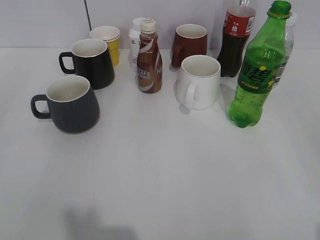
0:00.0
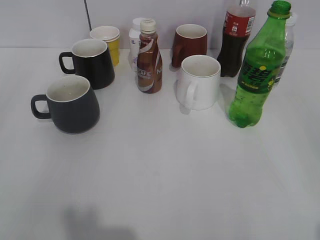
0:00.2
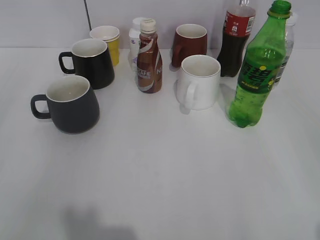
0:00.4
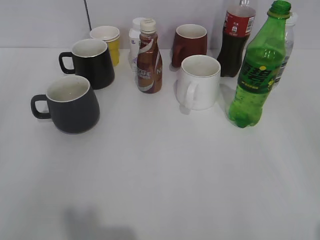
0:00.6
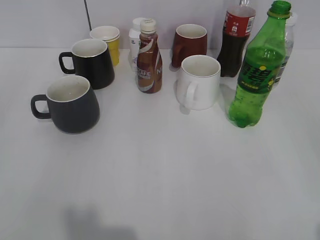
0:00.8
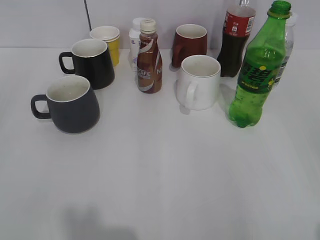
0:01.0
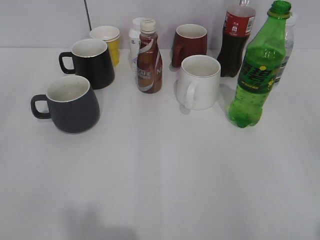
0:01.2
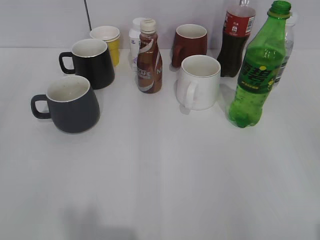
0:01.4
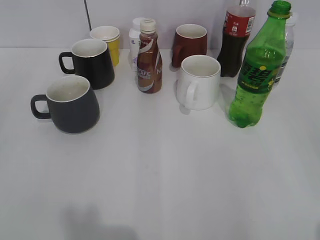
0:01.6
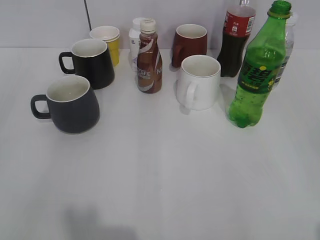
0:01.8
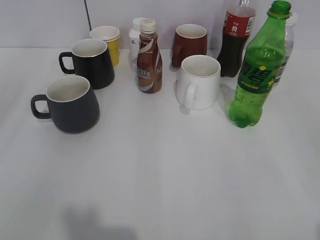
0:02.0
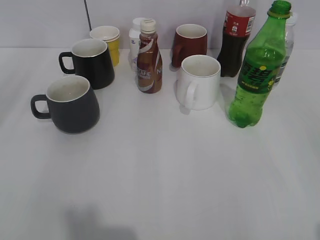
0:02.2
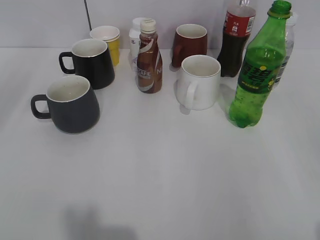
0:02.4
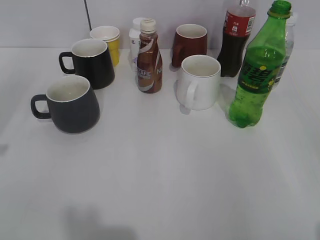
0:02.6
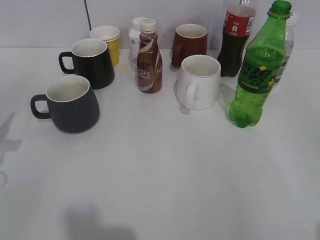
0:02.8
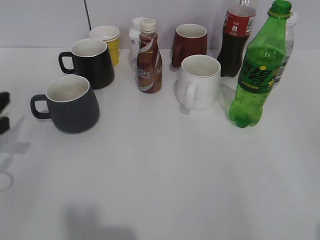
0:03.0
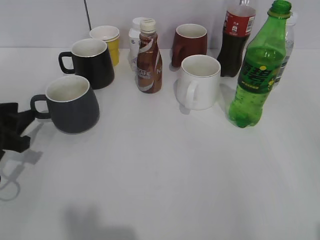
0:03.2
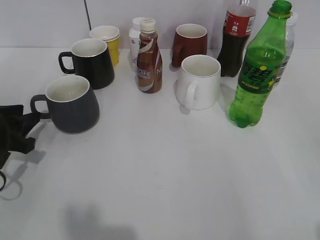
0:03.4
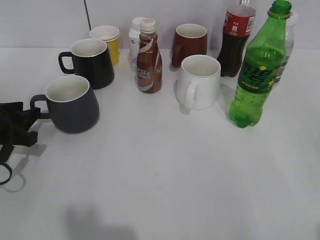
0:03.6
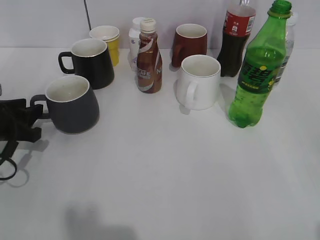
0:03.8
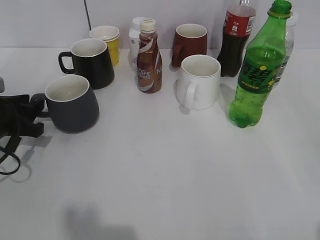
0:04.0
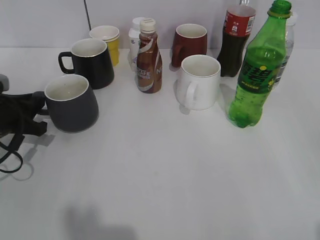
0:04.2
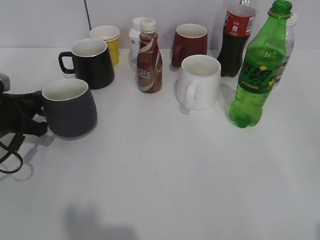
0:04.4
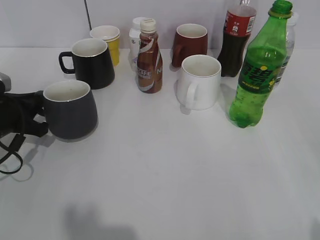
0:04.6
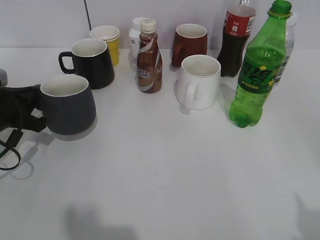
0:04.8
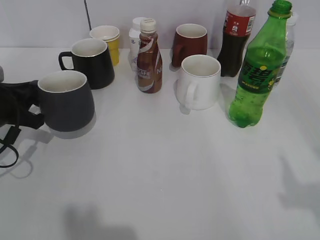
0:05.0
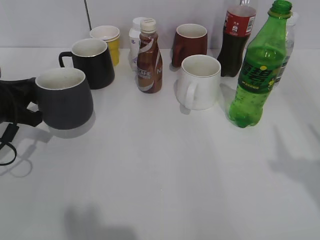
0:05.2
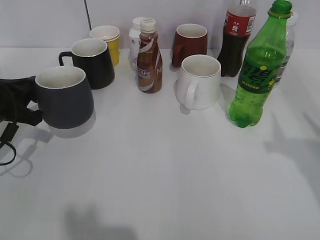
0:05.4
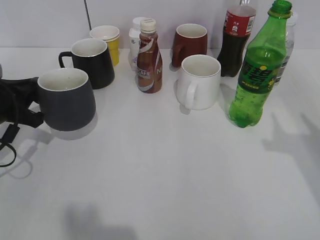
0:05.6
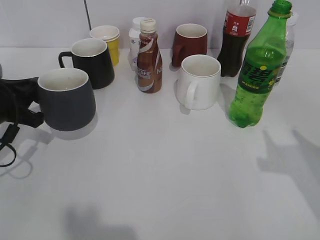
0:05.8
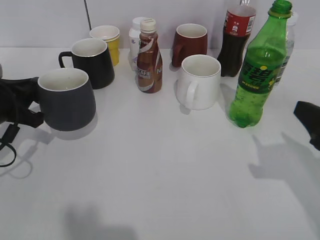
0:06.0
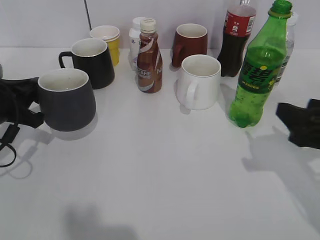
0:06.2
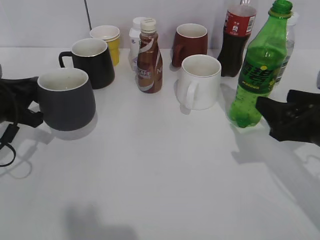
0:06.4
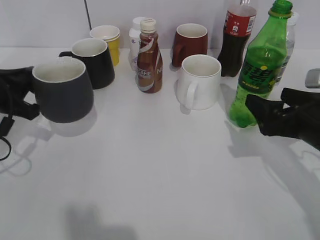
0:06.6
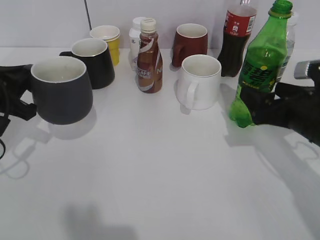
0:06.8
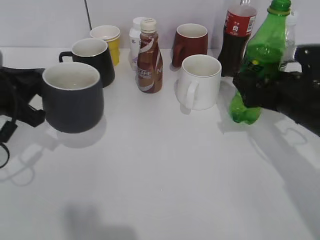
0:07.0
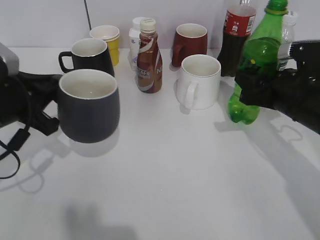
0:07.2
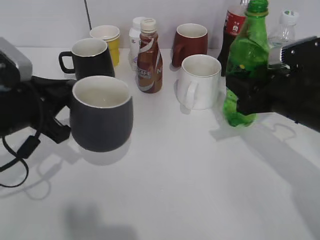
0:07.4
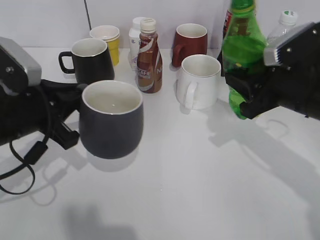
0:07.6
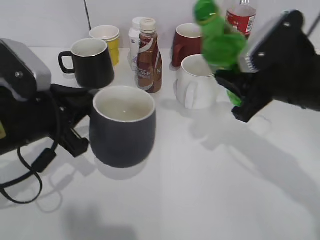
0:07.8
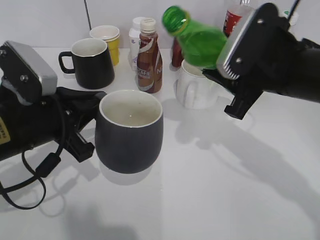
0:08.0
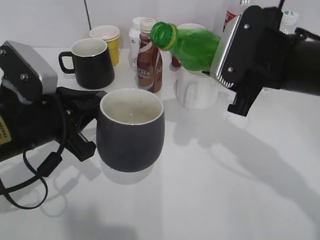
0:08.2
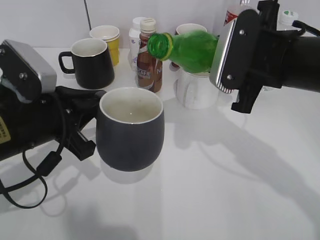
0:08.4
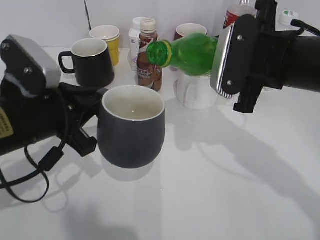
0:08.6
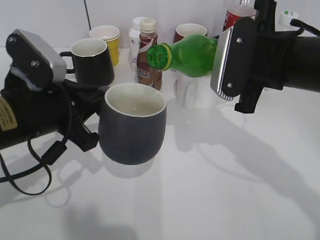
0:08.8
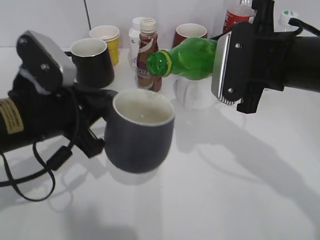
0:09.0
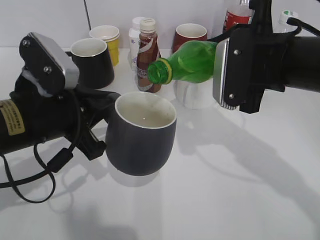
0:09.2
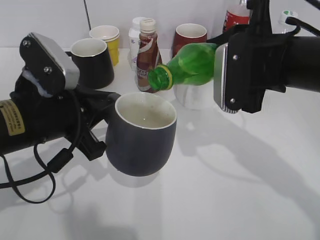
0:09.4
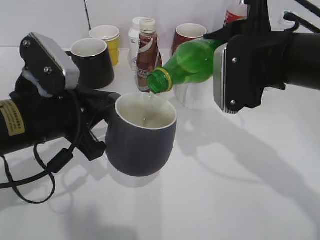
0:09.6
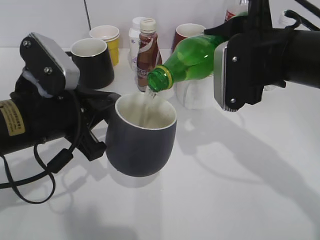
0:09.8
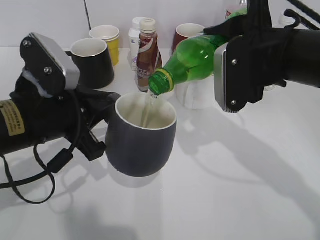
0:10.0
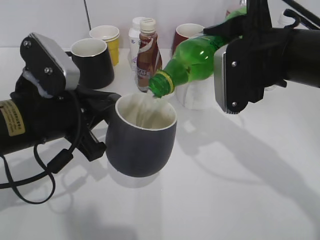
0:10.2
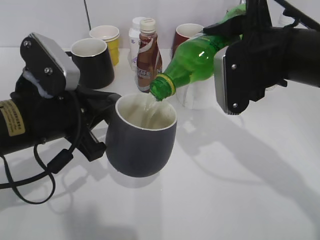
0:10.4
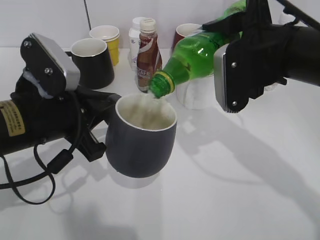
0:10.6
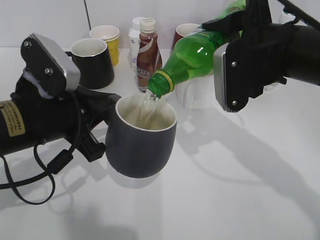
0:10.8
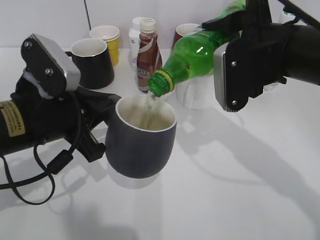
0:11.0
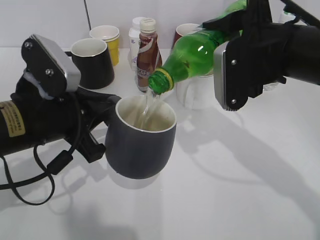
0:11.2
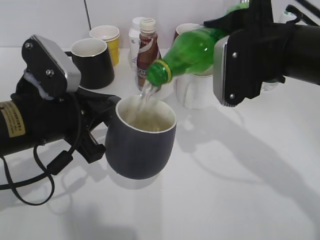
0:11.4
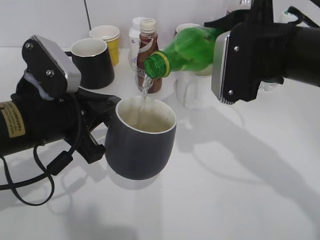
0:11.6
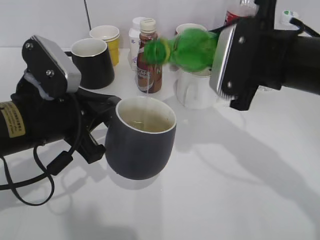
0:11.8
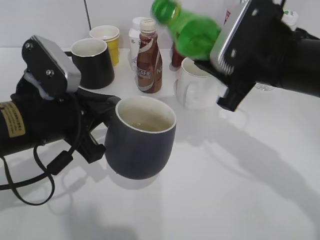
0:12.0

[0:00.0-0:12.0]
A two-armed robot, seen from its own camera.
Step, 0:01.8 to 0:04.2: Grasp the grey cup with left gripper.
Step, 0:06.0 to 0:07.0: Grasp the bottle with sprite with right gripper.
Step, 0:07.4 to 0:11.8: Pour the sprite from bottle to cup with right gripper.
0:01.6 to 0:03.0: The left gripper shifts roughly 25 cm forward and downward.
0:03.0 to 0:04.4: The left gripper changes place by about 5 cm, and closes its fingers.
0:04.4 to 0:06.0: The right gripper moves forward and downward, roughly 20 cm.
0:06.0 to 0:07.6: The left gripper moves to the right, about 5 cm. The right gripper moves forward and to the left, roughly 10 cm, and closes its fingers.
0:07.6 to 0:09.0: The right gripper shifts about 10 cm to the left and upward.

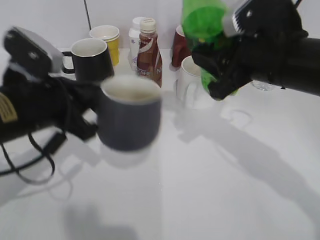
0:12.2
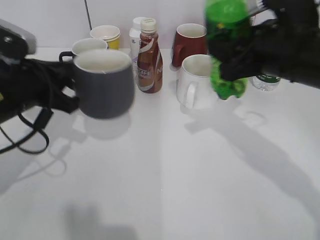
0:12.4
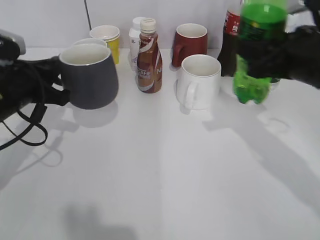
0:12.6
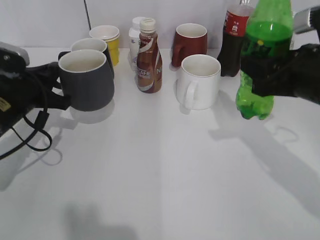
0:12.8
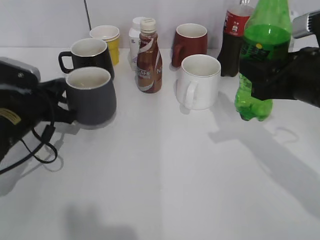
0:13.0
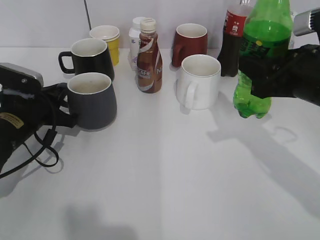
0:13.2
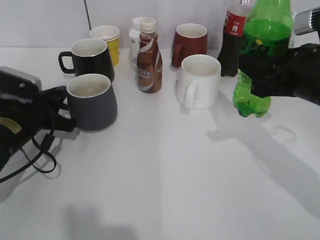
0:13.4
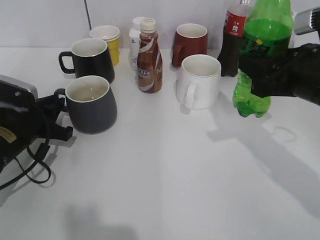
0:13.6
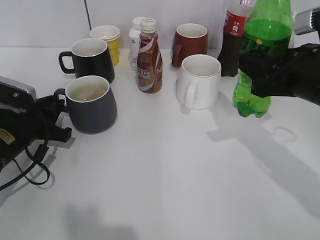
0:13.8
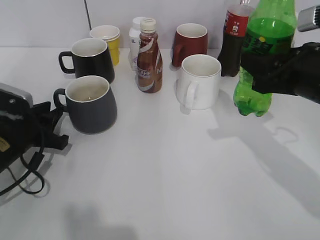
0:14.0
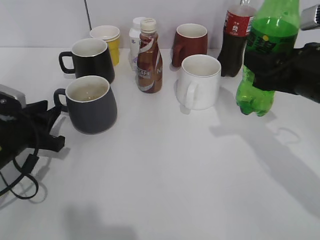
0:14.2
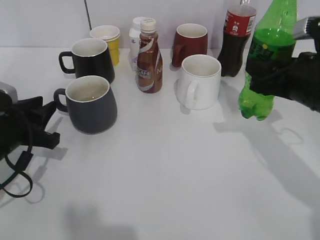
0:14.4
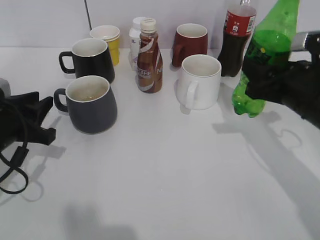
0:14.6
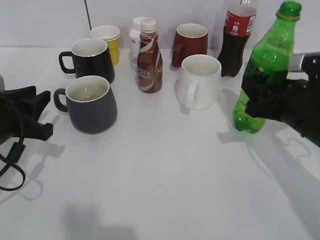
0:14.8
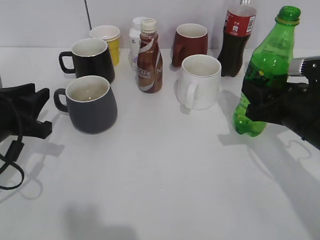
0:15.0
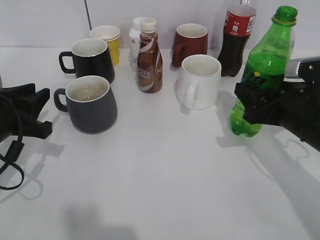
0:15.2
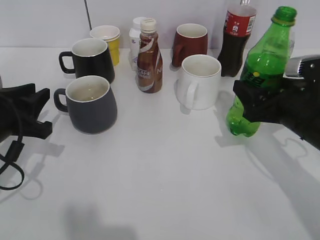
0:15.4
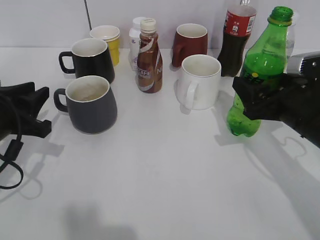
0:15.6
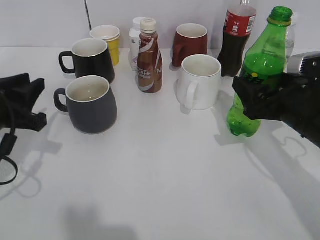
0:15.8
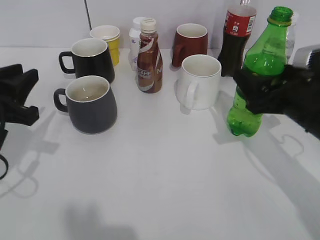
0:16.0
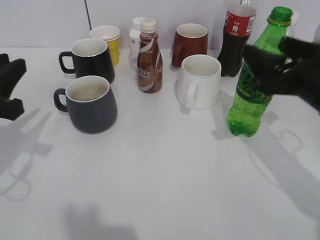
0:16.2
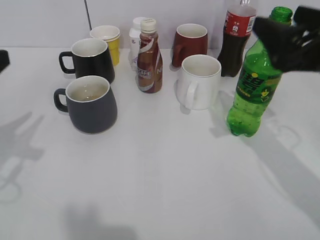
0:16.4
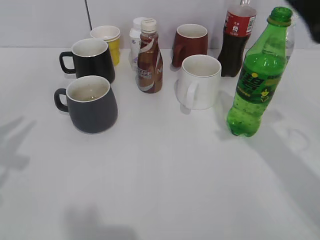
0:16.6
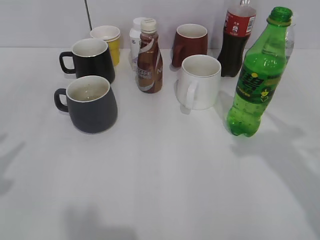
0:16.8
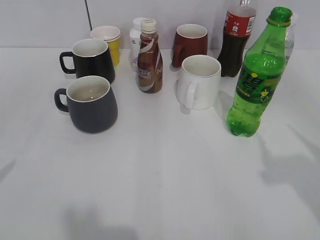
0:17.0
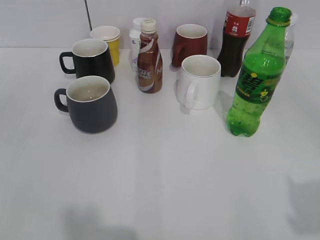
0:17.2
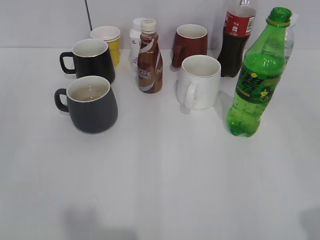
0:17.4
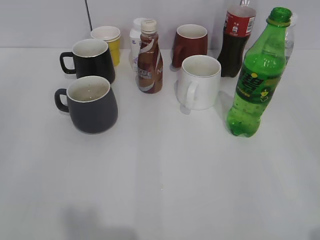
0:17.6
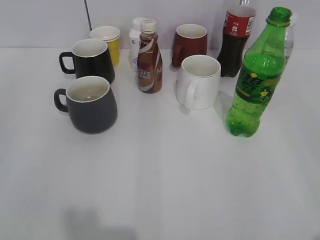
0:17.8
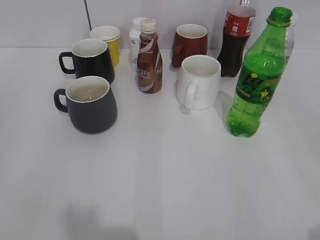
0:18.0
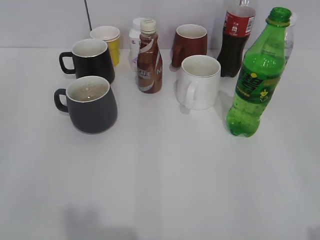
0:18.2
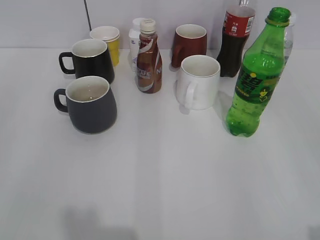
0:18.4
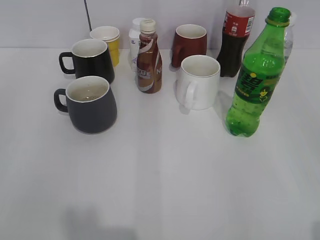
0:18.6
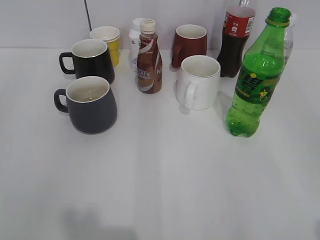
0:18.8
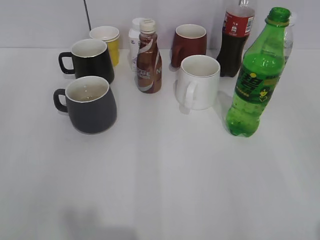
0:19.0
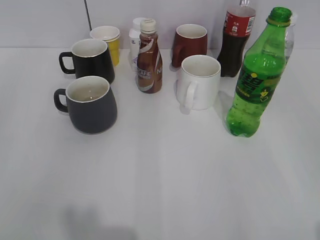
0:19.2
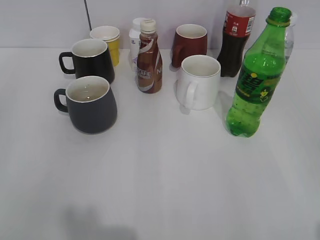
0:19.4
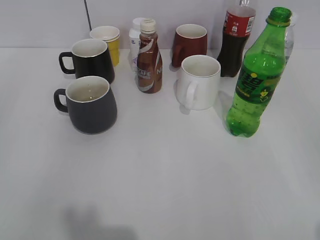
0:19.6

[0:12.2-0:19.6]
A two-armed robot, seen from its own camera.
Step, 0:12.2 to 0:13.6: Place the grey cup on the table with left gripper.
Step, 0:13.8 to 0:16.0: Place the sprite bottle on the table with right gripper.
0:12.2 to 0:13.6: The right gripper moves to the right, about 5 cm, while the left gripper is displaced downward, to the left and forward by some 15 cm.
0:13.6 to 0:15.2: The left gripper heads upward, covering roughly 5 cm. Meanwhile the right gripper heads downward, covering about 5 cm, and opens up.
0:15.2 to 0:16.6: The right gripper is displaced upward by approximately 15 cm, and opens. Meanwhile the left gripper travels upward and backward by approximately 15 cm.
0:16.6 to 0:18.2: The right gripper heads backward, covering some 20 cm.

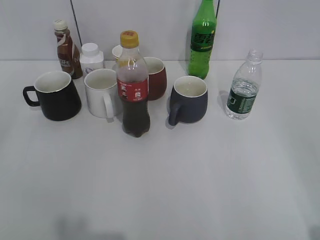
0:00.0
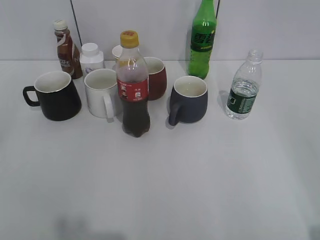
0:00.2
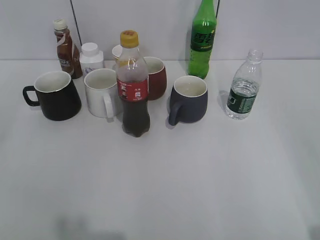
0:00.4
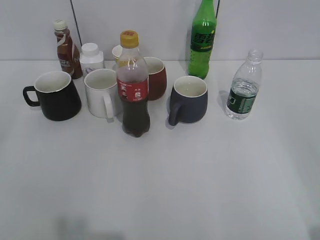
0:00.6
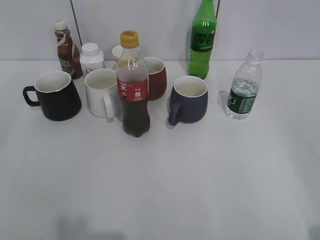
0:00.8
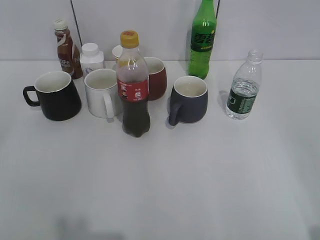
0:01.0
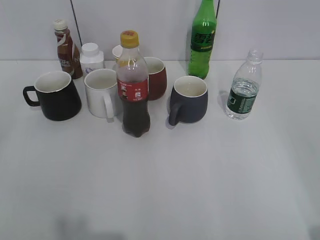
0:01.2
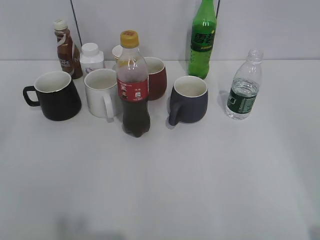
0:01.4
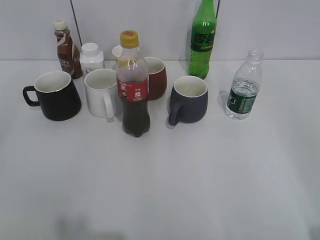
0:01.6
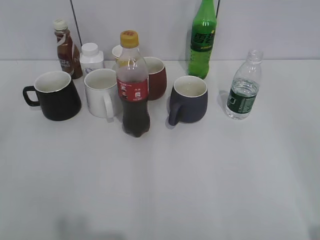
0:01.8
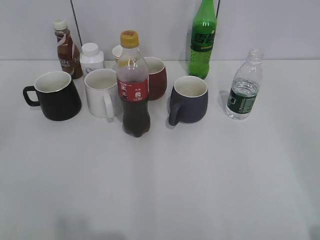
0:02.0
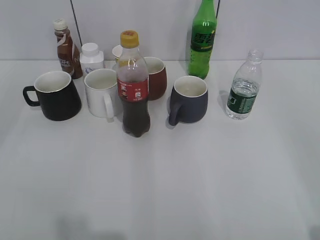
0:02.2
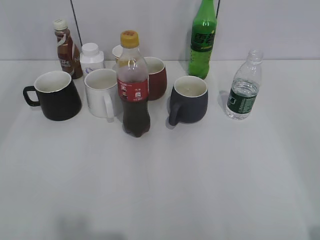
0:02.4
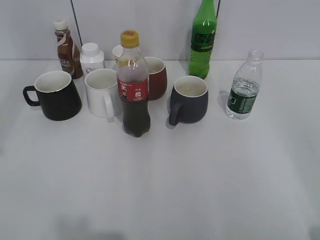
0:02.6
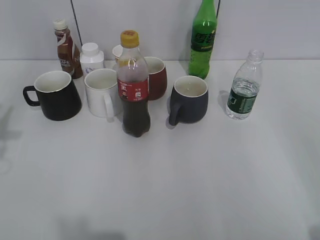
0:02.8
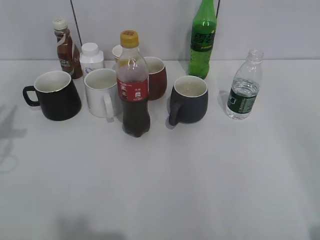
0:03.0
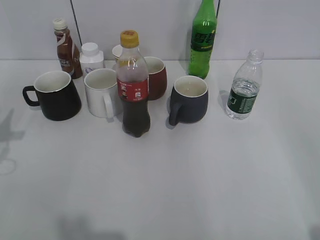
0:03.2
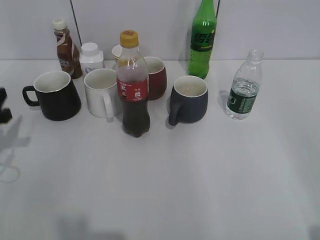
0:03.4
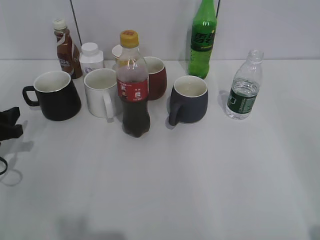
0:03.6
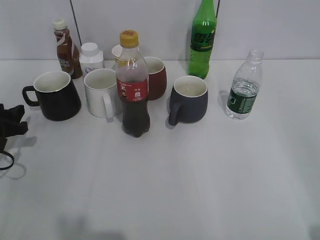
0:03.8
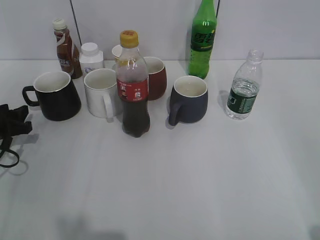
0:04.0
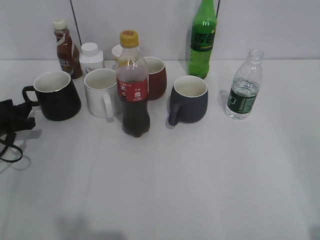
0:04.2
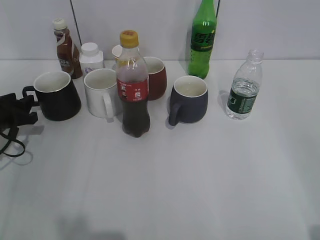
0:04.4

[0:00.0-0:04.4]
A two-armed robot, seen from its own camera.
0:03.0 to 0:04.4: The left gripper shifts some 20 cm downward and forward.
